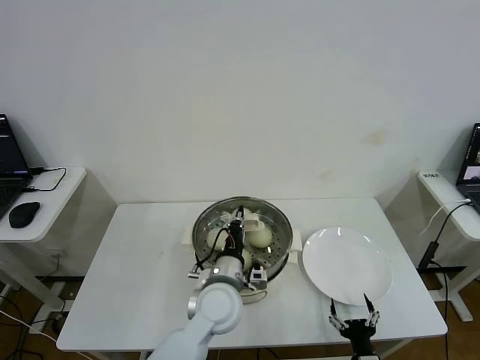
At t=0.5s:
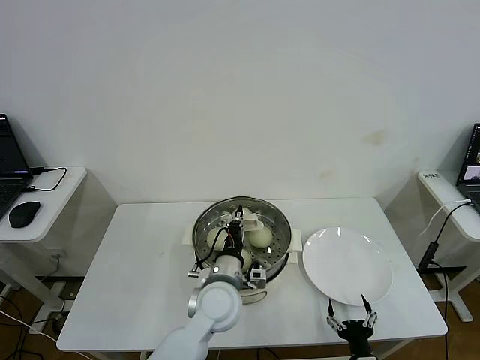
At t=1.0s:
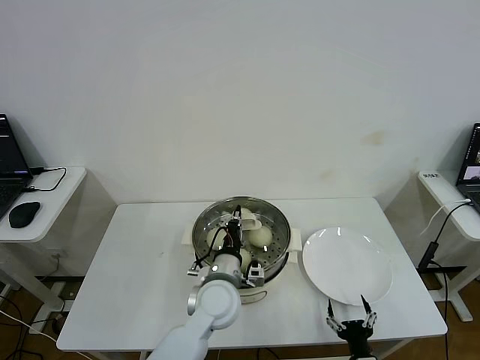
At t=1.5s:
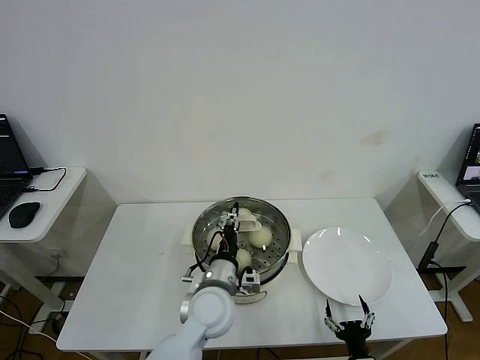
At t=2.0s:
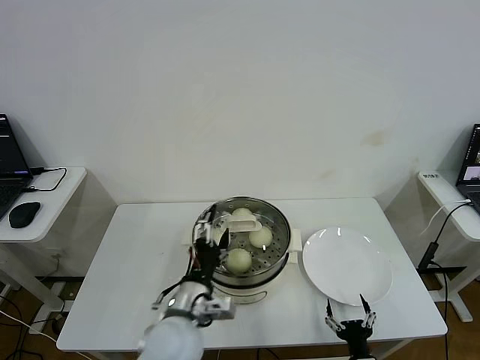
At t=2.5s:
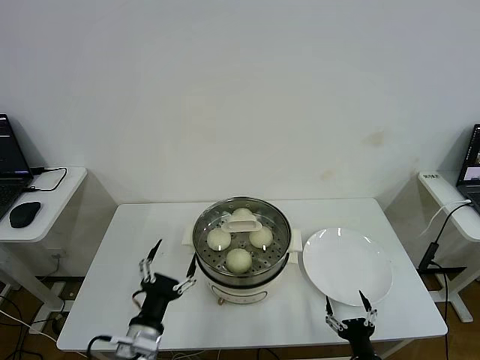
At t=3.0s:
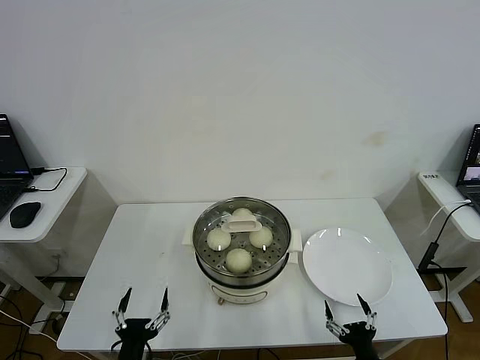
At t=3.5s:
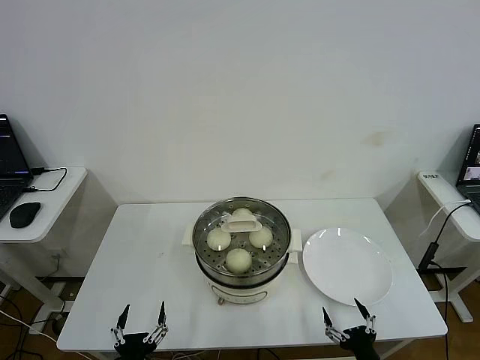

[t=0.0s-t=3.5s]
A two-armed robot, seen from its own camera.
t=0.0s to t=2.0s: The left gripper travels backward and to the left by about 10 cm, and opens up.
t=2.0s to t=3.5s: The left gripper travels backward, downward and to the left by about 25 cm, while the right gripper shifts by approximately 5 cm.
